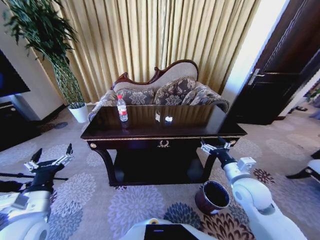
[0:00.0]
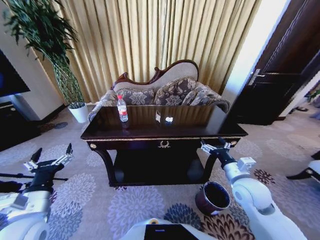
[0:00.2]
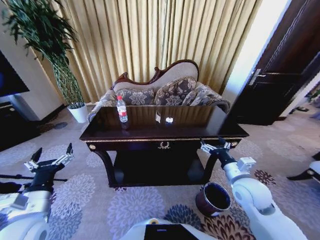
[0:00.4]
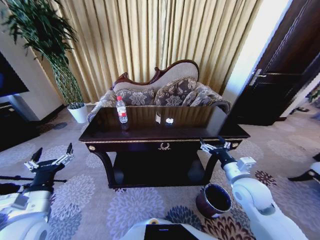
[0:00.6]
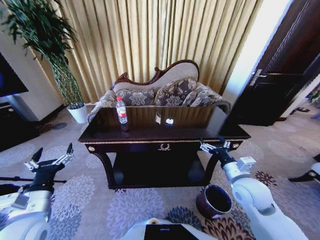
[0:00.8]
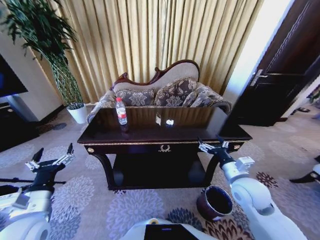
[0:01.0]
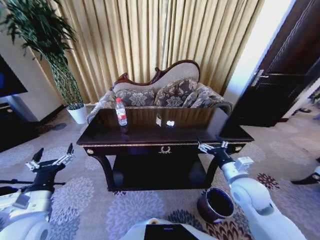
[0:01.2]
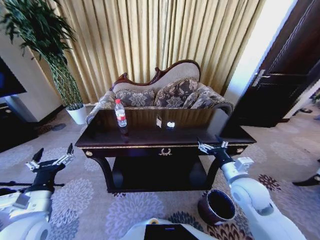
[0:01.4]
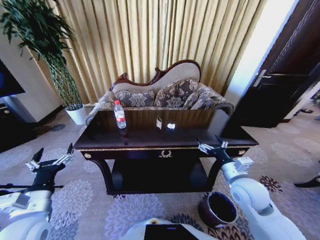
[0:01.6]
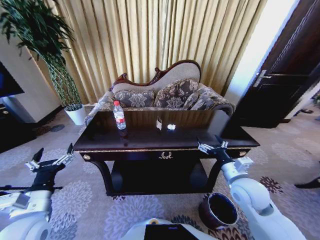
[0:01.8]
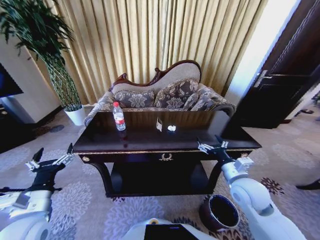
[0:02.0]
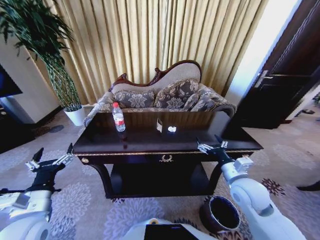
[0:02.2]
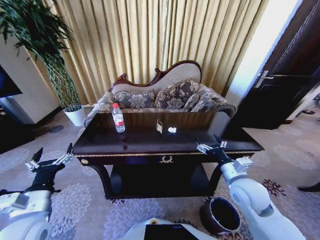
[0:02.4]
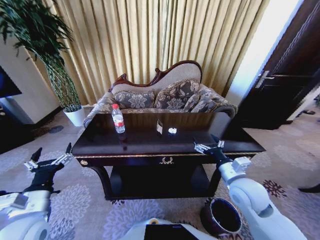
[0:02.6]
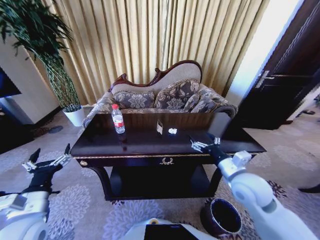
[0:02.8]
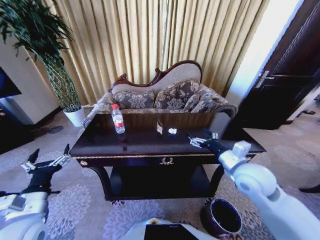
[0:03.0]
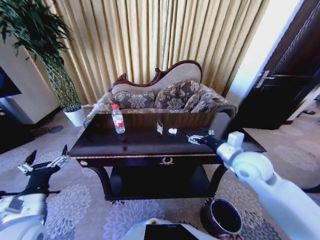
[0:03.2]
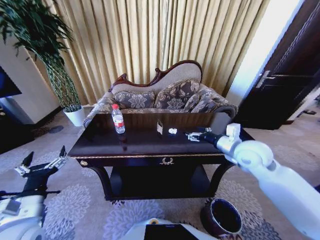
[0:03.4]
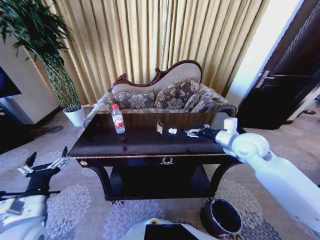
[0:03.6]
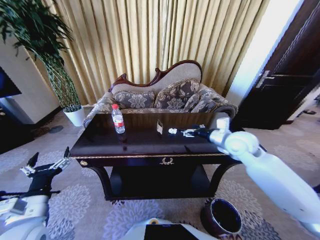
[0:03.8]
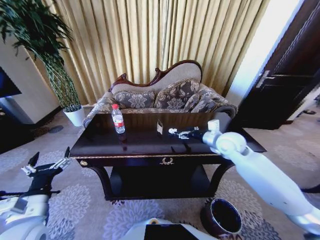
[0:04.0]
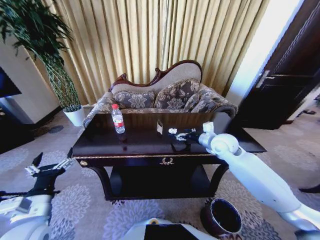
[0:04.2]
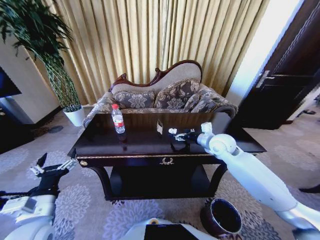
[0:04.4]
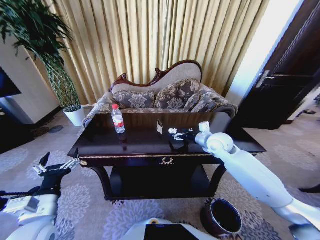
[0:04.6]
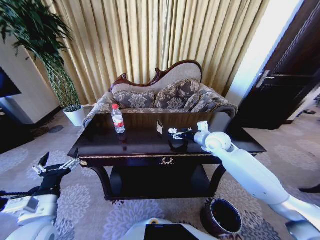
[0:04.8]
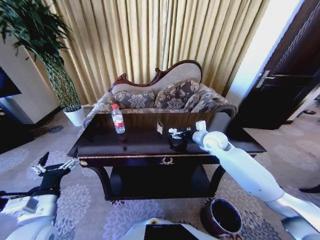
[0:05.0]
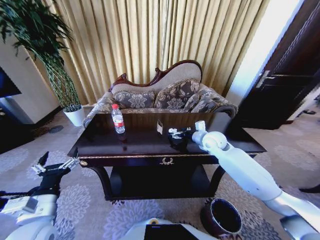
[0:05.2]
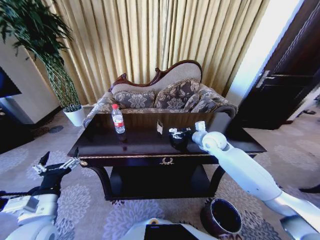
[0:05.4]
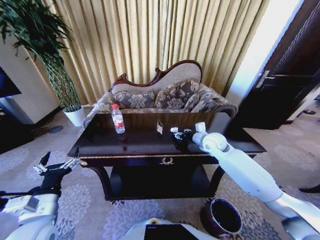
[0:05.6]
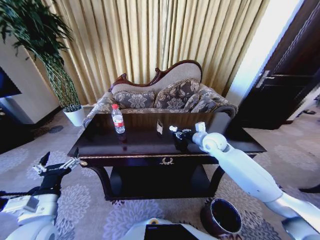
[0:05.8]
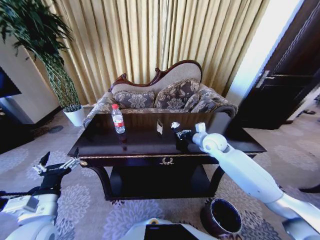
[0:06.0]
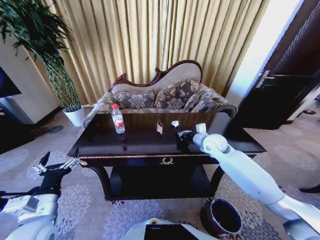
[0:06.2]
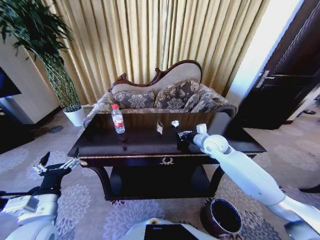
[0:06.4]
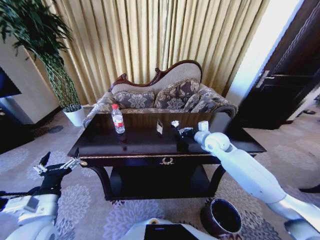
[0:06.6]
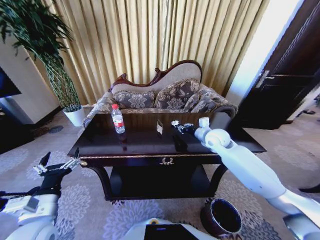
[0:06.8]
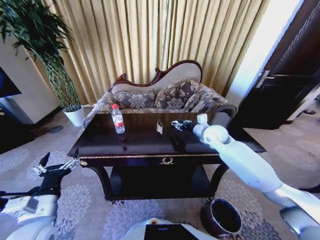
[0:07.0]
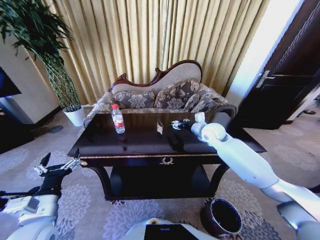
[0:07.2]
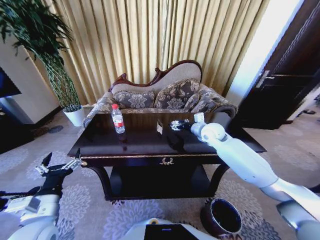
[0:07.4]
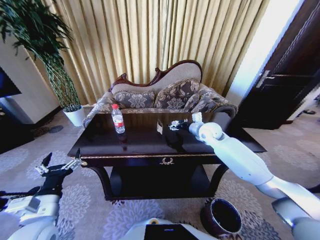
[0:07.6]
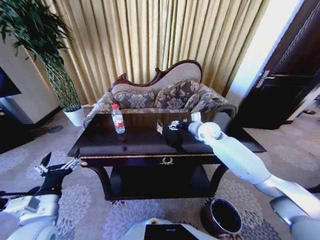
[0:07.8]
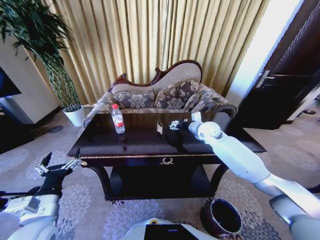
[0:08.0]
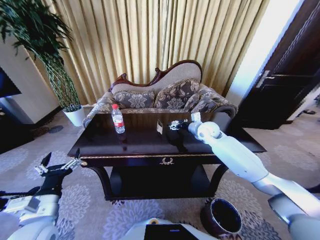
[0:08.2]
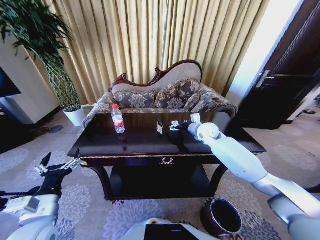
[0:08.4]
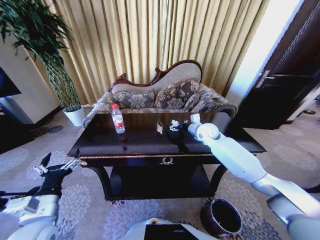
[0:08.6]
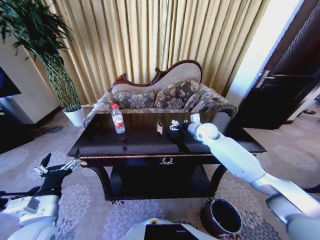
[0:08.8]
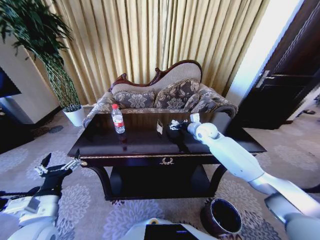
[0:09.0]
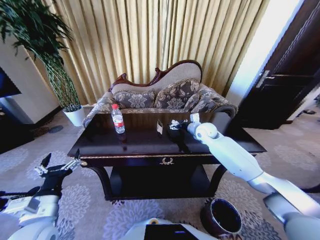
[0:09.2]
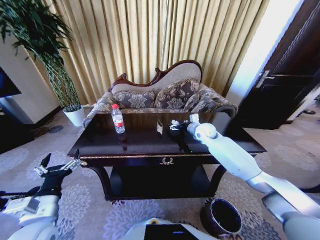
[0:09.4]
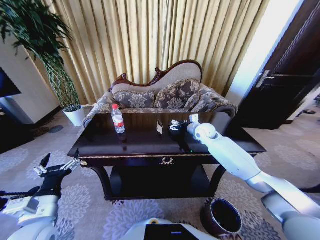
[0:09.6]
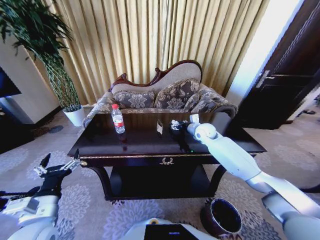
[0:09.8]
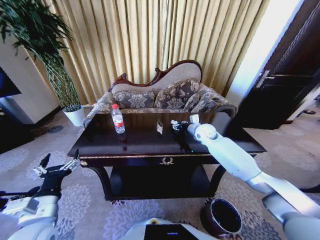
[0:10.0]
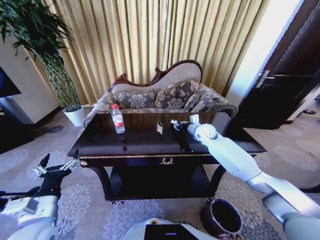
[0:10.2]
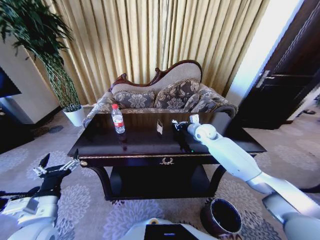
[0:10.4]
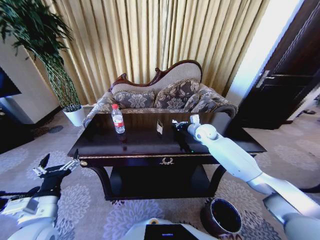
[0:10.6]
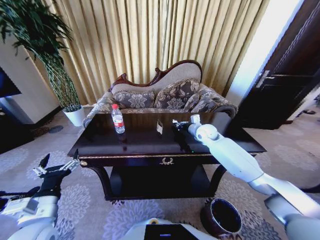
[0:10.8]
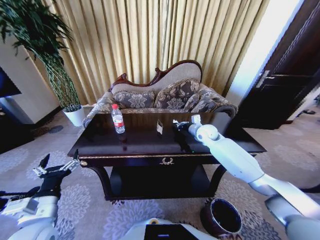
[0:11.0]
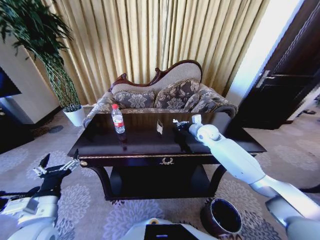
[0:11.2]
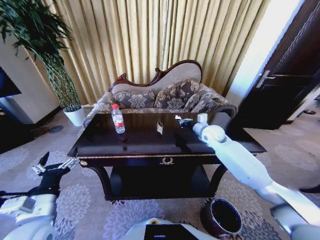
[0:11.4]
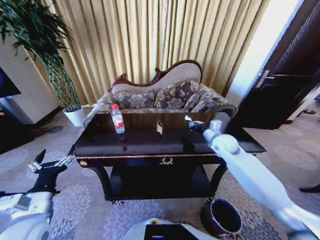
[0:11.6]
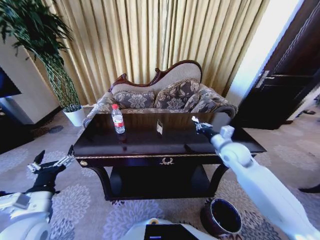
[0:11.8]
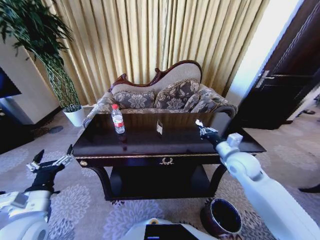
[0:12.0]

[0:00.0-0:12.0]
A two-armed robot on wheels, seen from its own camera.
Task of the whole recording: Move to the front of the table and place the trash on the table into the trash bin.
0:01.6 to 0:03.0: The right gripper heads upward, covering some 5 cm.
0:03.0 to 0:04.4: The right gripper travels forward by some 15 cm.
0:04.4 to 0:06.0: The right gripper closes its fingers.
0:06.0 to 0:07.6: The right gripper moves some 5 cm, and opens its fingers.
0:07.6 to 0:09.0: There are only small adjustments of the grippers.
0:09.0 to 0:10.4: The right gripper closes up.
0:10.4 to 0:12.0: The right gripper travels backward by approximately 20 cm.

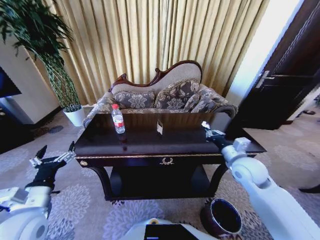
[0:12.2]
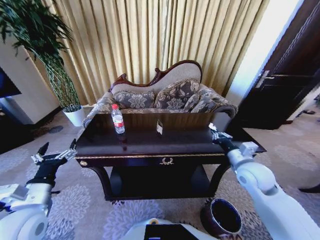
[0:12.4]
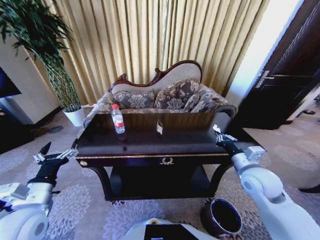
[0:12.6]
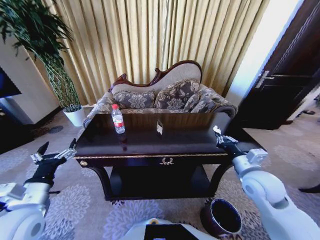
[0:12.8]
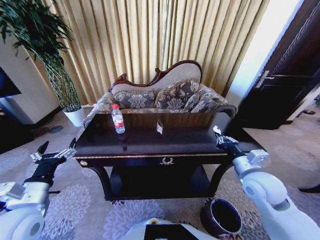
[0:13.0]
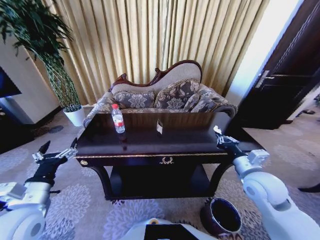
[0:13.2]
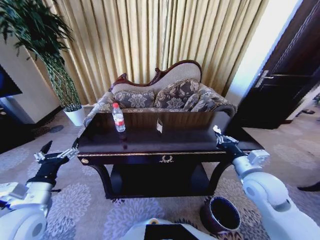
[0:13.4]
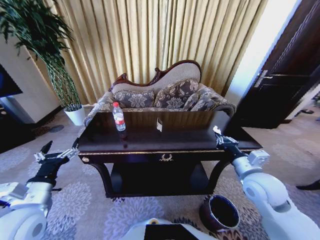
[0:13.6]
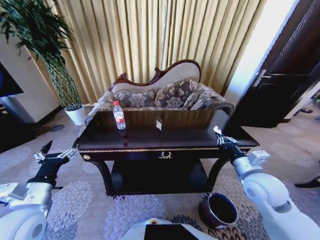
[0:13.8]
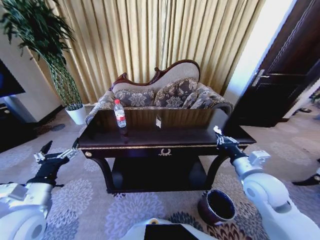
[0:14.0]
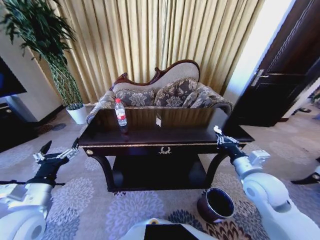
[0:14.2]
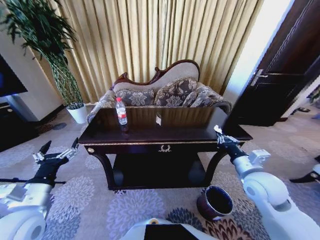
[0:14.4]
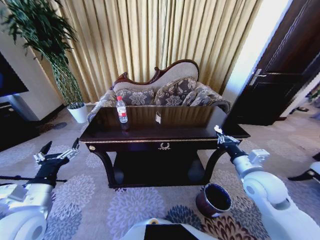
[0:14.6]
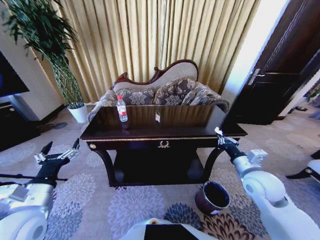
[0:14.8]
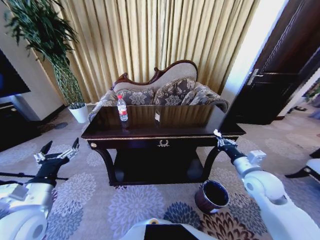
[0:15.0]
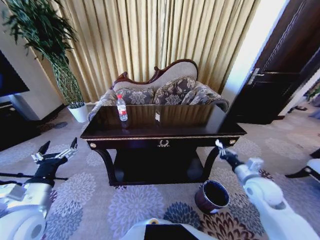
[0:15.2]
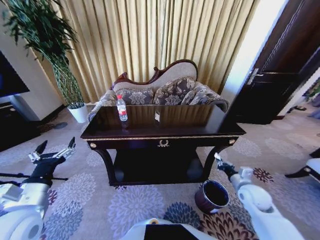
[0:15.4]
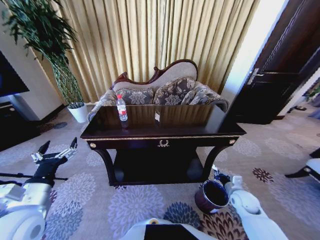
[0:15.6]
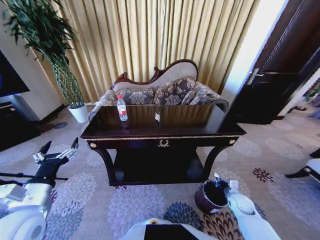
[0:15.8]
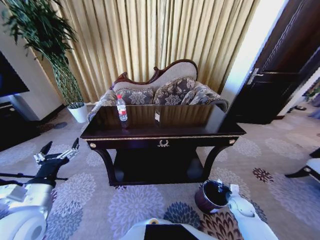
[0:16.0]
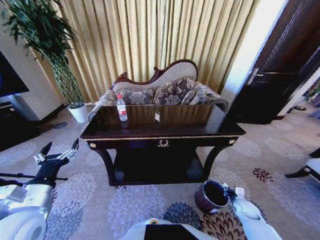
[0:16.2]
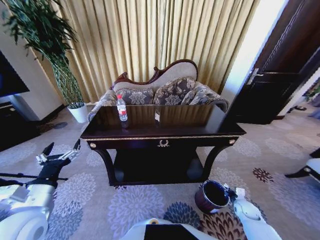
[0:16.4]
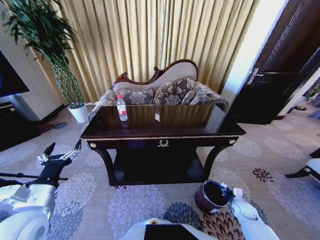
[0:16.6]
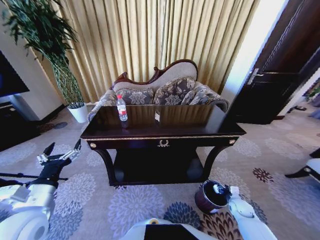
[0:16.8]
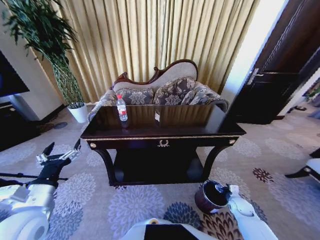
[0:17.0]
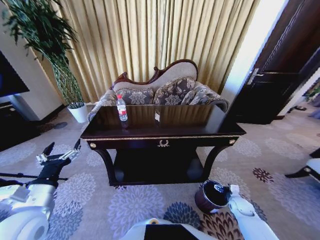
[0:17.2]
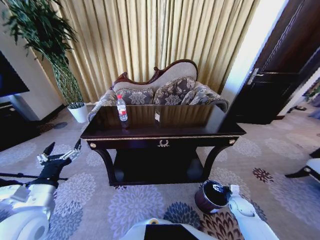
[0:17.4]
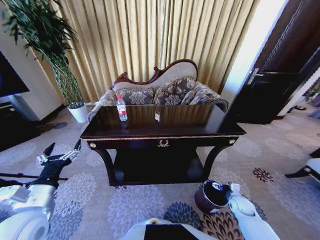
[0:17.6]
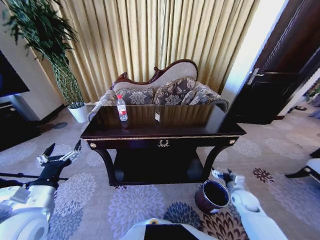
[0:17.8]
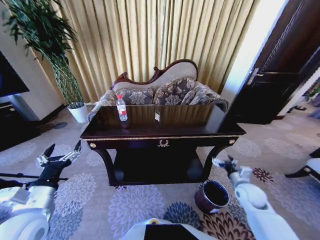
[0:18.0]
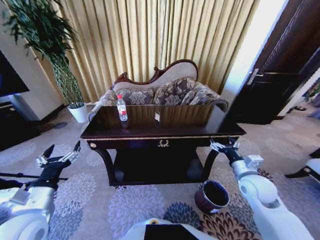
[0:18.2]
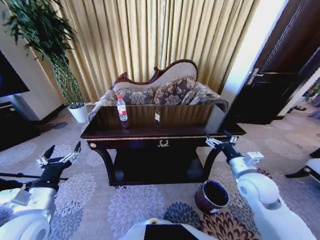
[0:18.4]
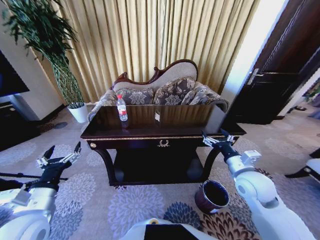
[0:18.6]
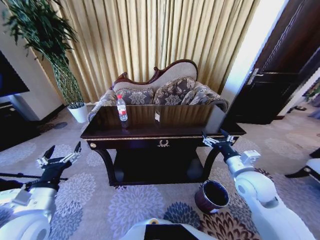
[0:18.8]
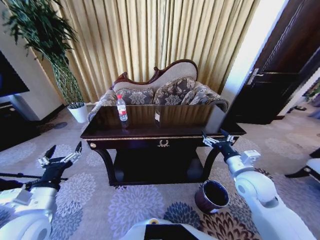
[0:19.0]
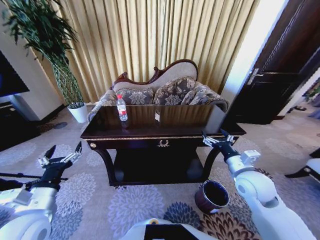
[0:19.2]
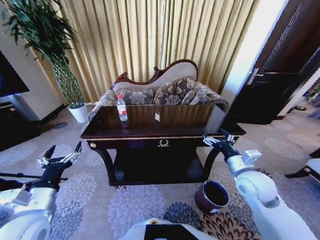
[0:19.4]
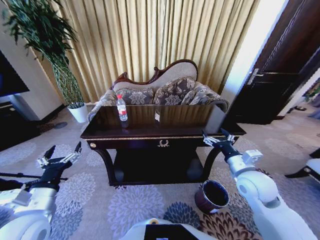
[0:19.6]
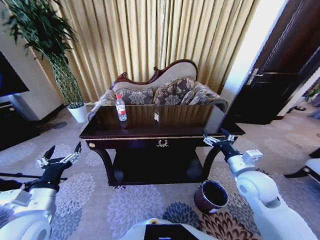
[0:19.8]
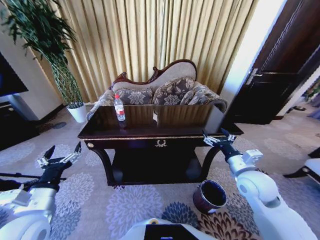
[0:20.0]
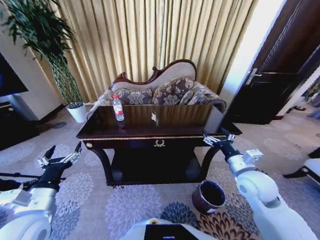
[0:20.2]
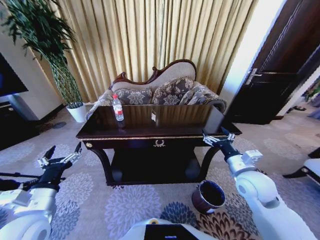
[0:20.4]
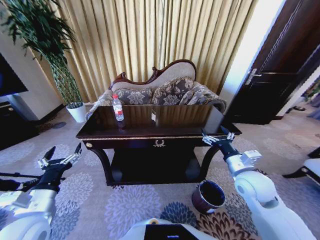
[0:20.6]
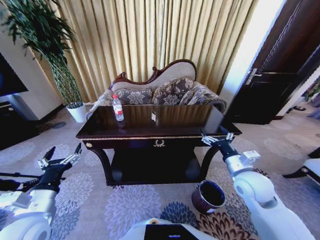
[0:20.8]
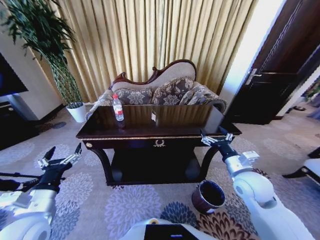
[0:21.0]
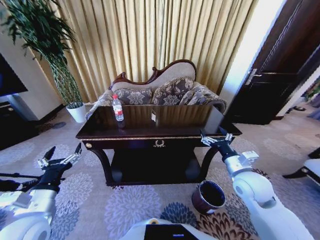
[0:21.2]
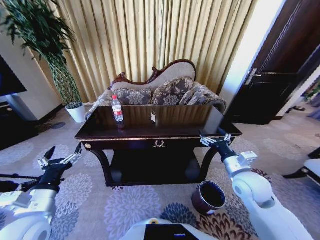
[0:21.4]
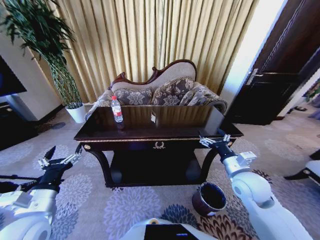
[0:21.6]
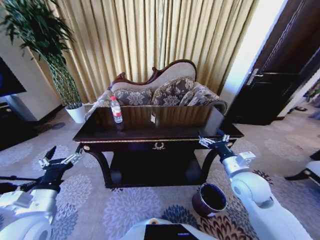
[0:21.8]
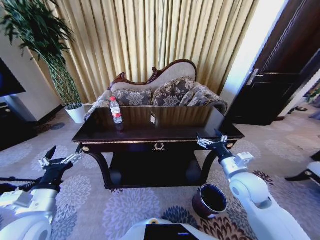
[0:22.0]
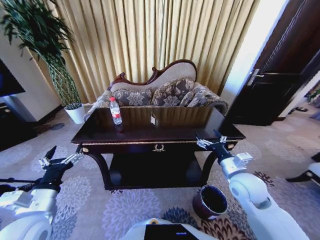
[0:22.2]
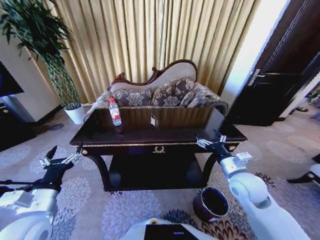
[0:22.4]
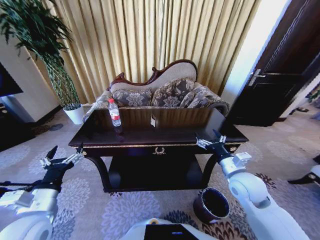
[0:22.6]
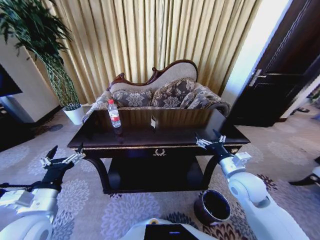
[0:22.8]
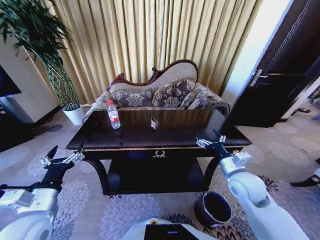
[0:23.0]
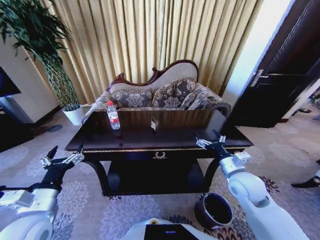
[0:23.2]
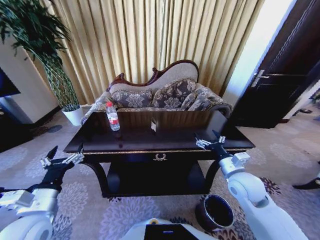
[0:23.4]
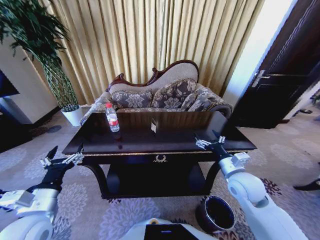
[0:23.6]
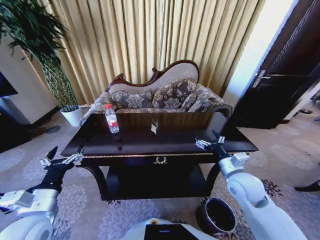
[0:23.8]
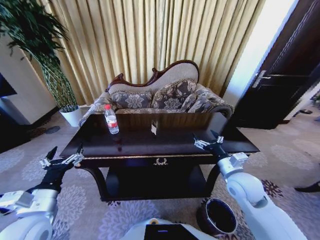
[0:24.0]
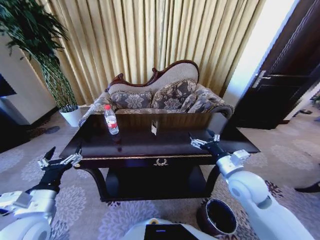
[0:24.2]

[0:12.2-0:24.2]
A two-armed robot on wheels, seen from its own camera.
Task of the whole recording: Move to the front of the table and place the trash on the table into the trash bin.
0:12.2 to 0:13.8: The right gripper moves backward, approximately 5 cm.
0:13.8 to 0:15.2: The right gripper moves downward and to the right, some 10 cm.
0:15.2 to 0:16.6: The right gripper shifts roughly 25 cm downward.
0:16.6 to 0:18.2: The right gripper heads upward, covering roughly 25 cm, and opens up.
0:18.2 to 0:19.8: The right gripper ends up some 5 cm from where it was.
